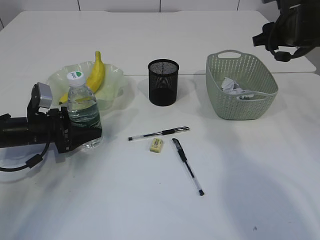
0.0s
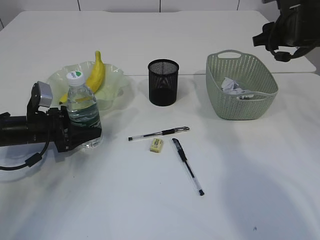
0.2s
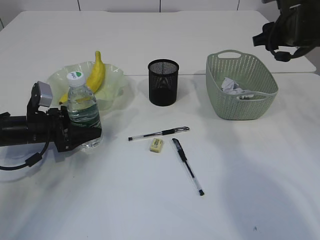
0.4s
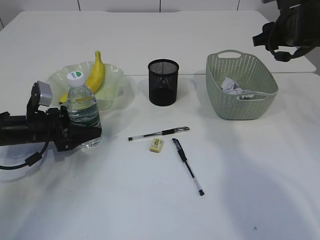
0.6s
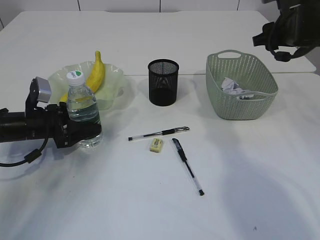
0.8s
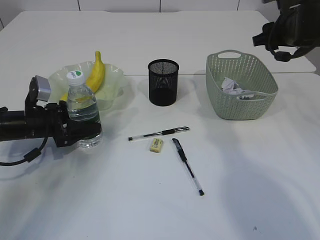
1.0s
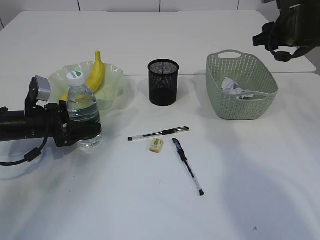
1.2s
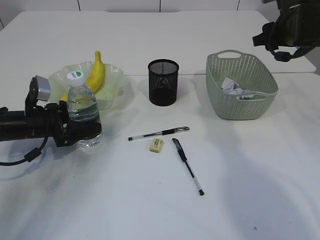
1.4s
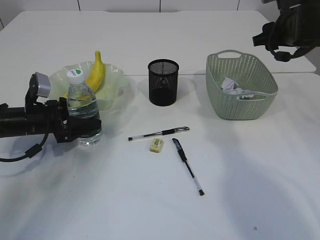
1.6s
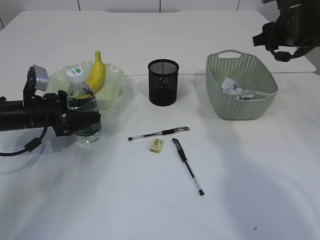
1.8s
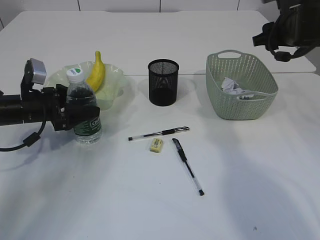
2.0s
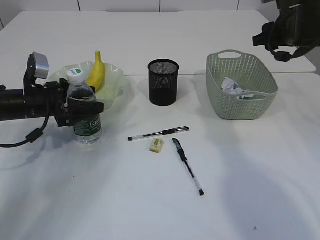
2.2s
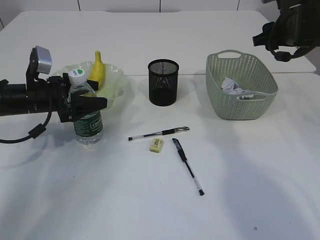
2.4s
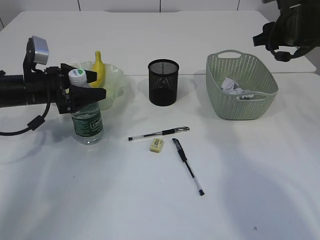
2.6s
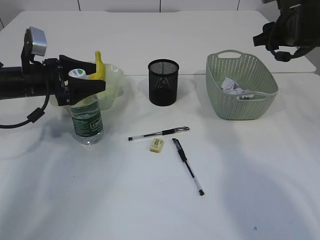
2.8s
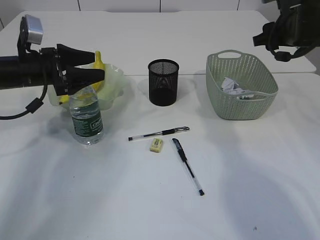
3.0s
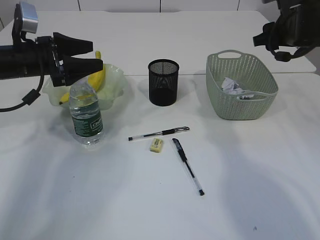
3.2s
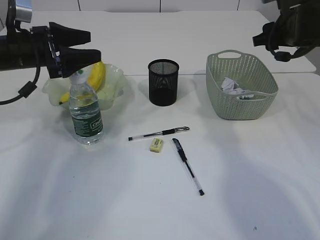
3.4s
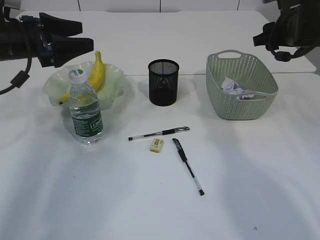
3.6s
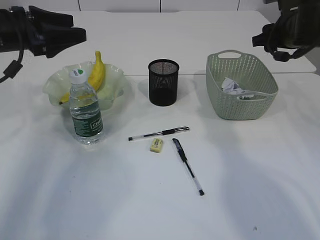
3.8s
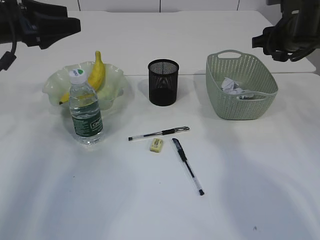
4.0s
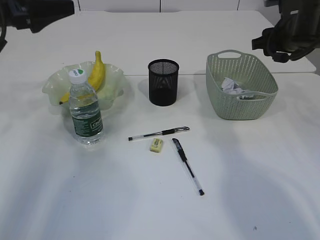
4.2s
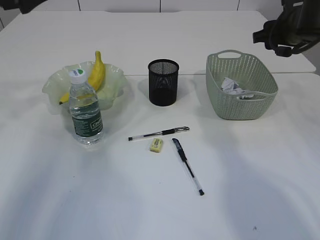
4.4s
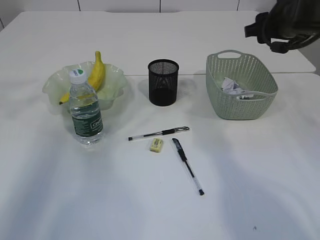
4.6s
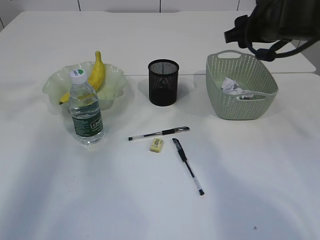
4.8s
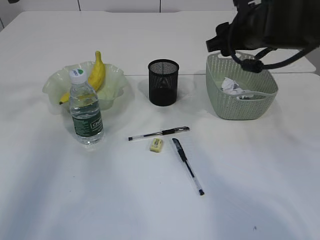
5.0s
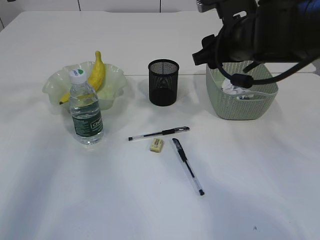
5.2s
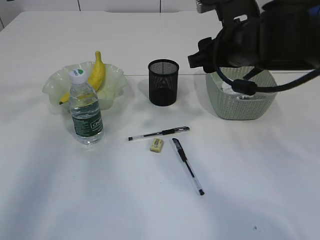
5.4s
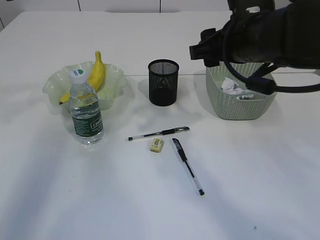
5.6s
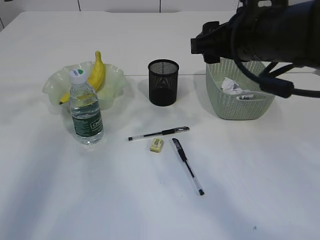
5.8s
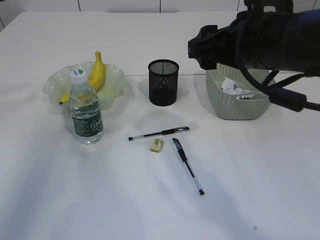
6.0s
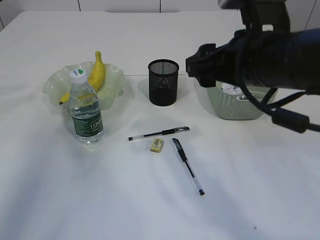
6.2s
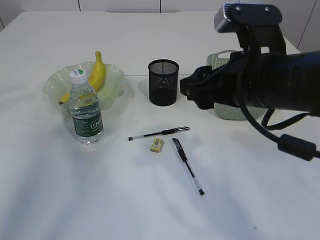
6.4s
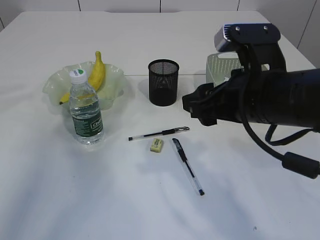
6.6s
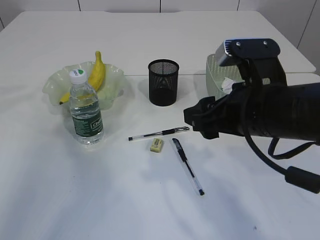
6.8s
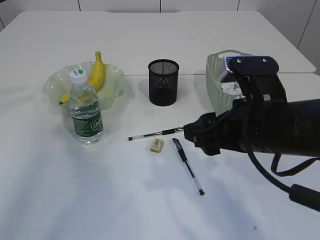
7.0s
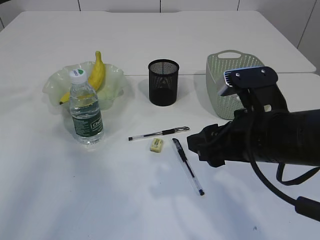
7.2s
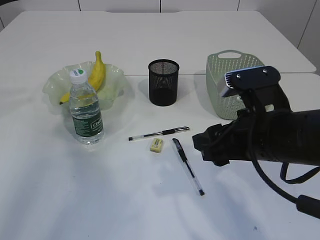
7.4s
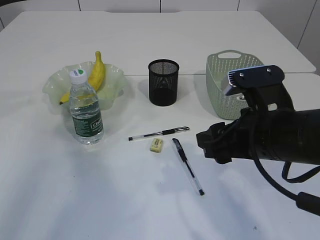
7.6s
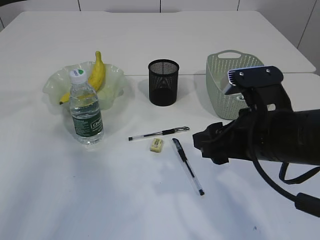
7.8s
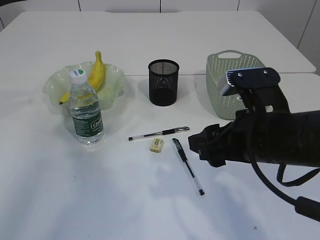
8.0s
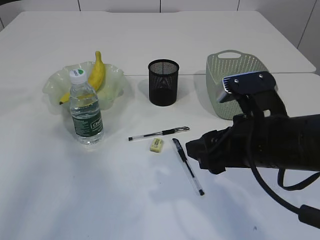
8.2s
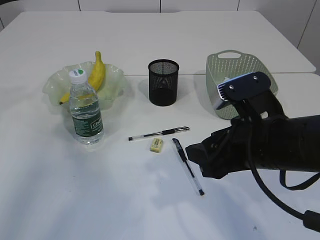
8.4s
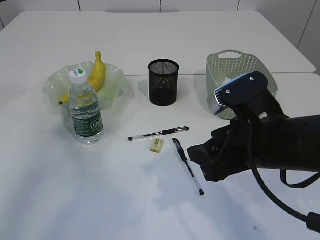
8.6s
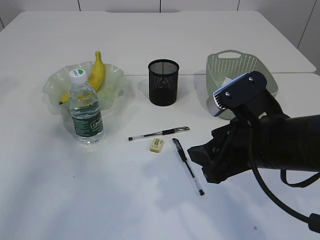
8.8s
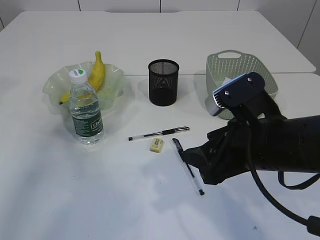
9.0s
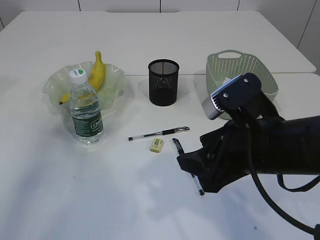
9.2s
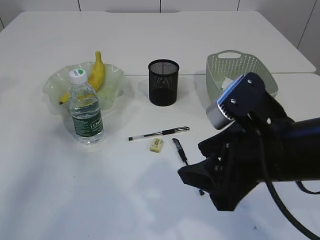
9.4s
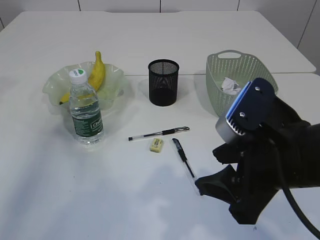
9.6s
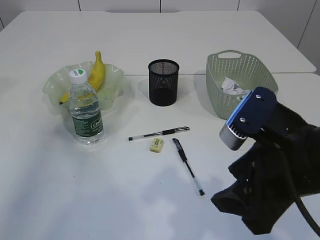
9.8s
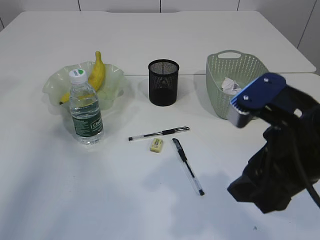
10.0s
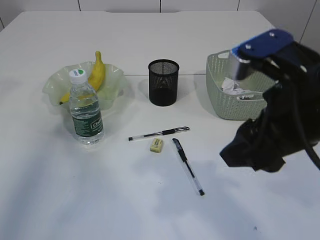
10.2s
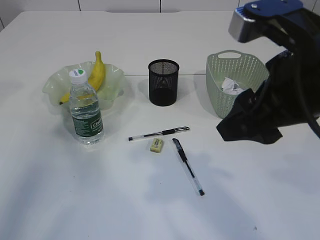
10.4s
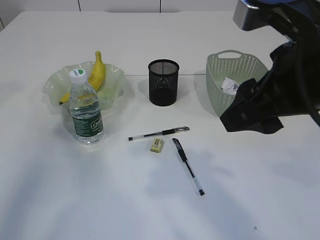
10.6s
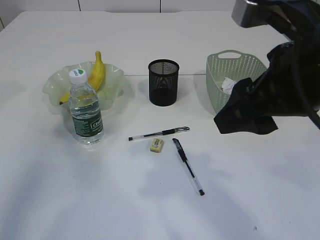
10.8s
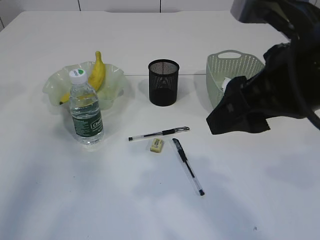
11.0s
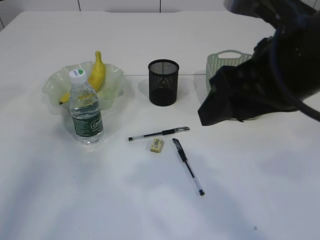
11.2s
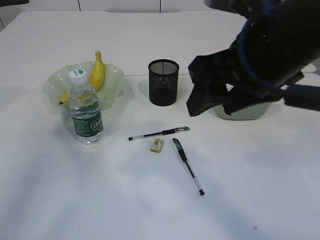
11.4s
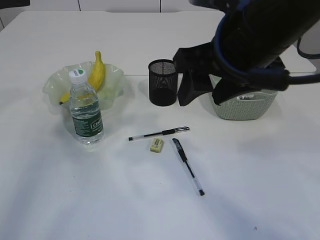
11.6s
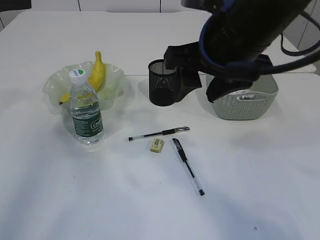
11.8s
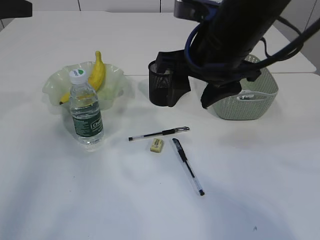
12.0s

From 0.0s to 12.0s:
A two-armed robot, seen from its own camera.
Step, from 0.0s to 3.4s: Place the bottle.
From 0.0s to 1.6s: The grippers move only a little.
From 1.6s to 3.0s: The left gripper moves upward, some 10 cm.
From 3.0s to 4.4s: The left gripper goes roughly 15 cm upward.
From 4.4s to 6.0s: The right gripper travels backward and to the left by approximately 20 cm.
From 6.0s to 7.6s: The right gripper travels downward and backward by roughly 10 cm.
From 9.0s to 10.4s: The right gripper moves upward, approximately 10 cm.
From 10.4s to 12.0s: The right gripper shifts roughly 10 cm forward and to the left.

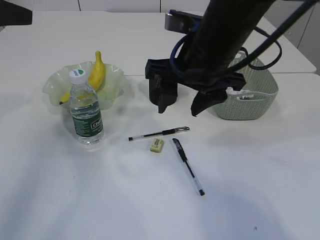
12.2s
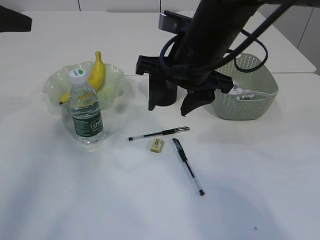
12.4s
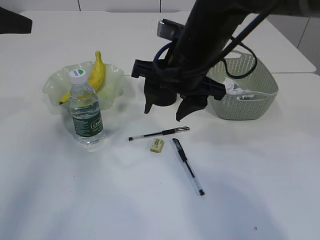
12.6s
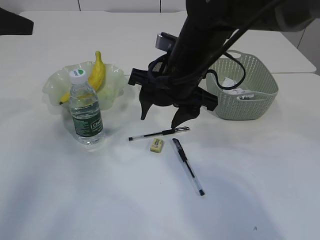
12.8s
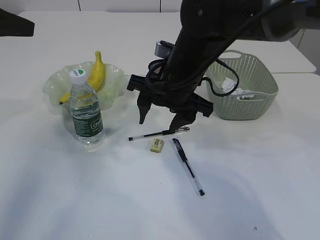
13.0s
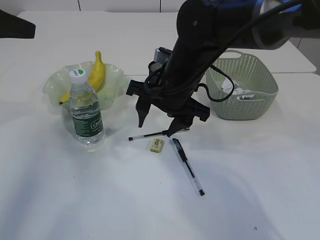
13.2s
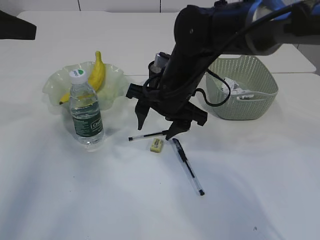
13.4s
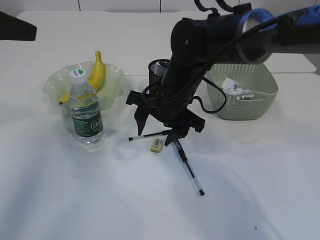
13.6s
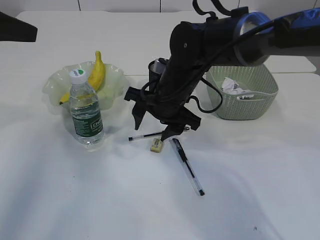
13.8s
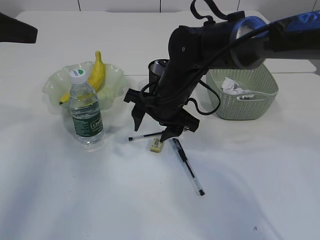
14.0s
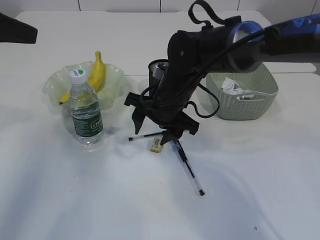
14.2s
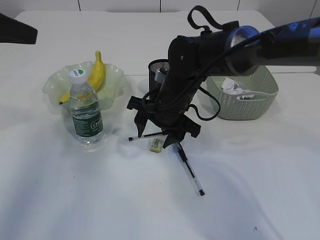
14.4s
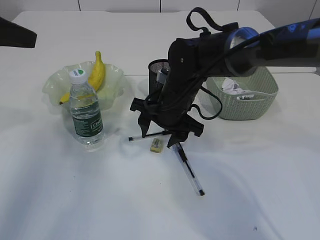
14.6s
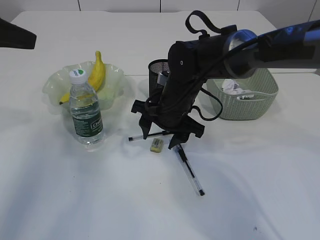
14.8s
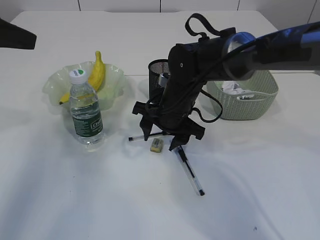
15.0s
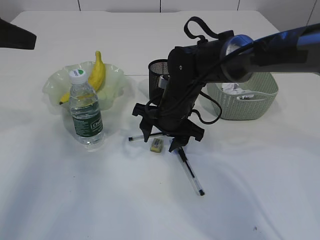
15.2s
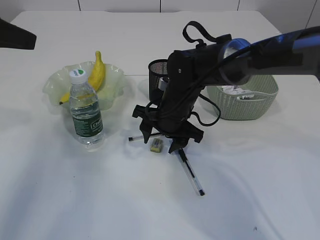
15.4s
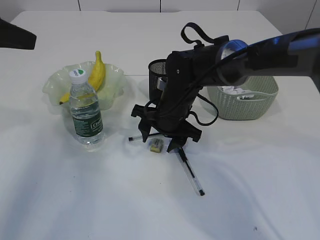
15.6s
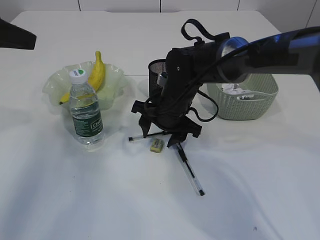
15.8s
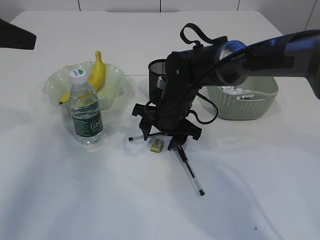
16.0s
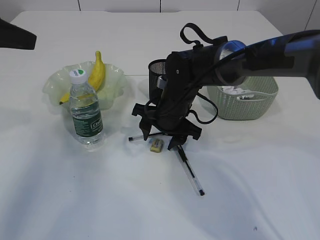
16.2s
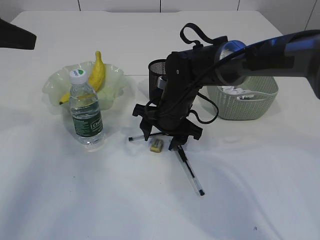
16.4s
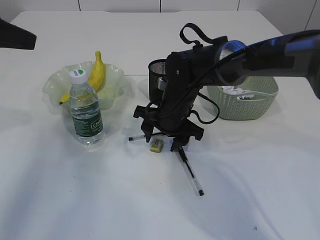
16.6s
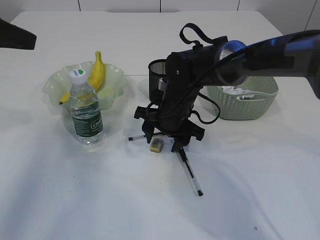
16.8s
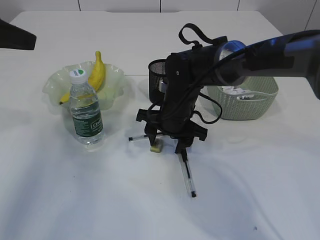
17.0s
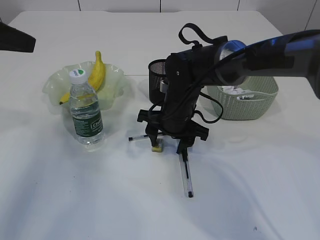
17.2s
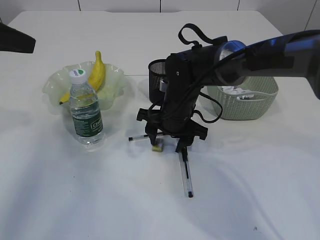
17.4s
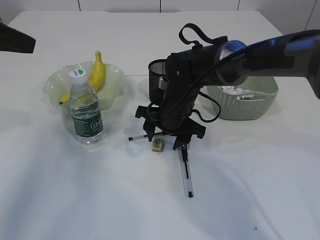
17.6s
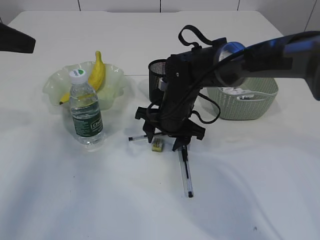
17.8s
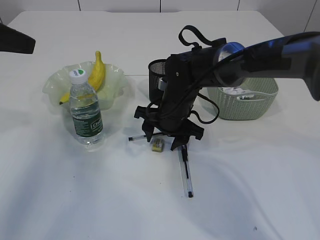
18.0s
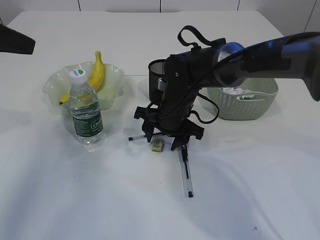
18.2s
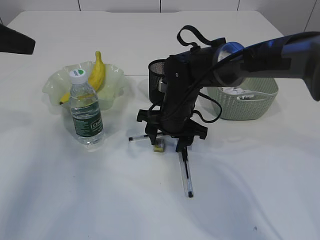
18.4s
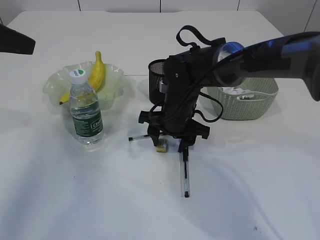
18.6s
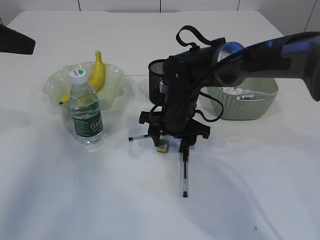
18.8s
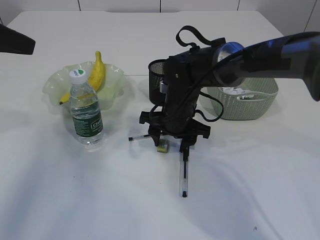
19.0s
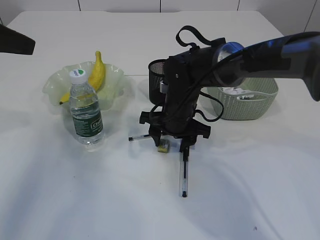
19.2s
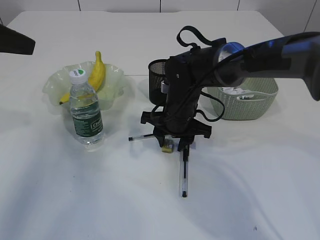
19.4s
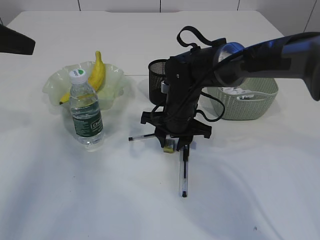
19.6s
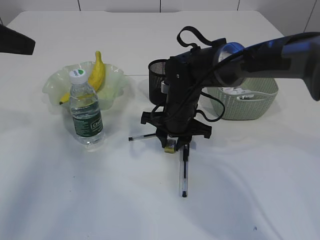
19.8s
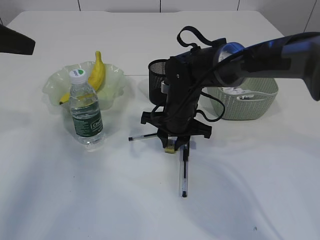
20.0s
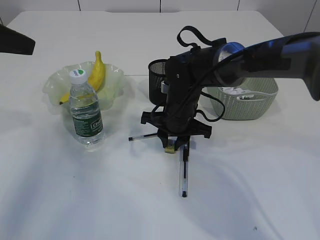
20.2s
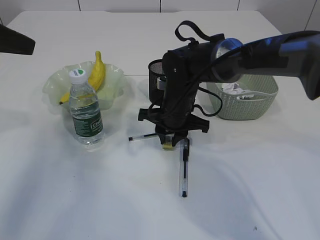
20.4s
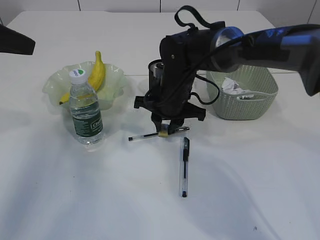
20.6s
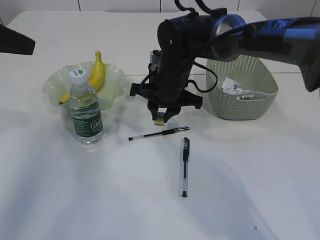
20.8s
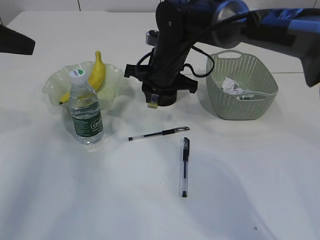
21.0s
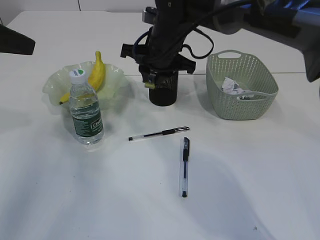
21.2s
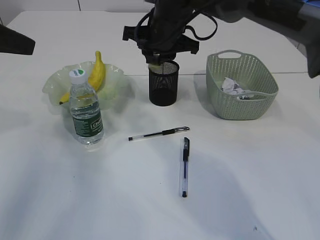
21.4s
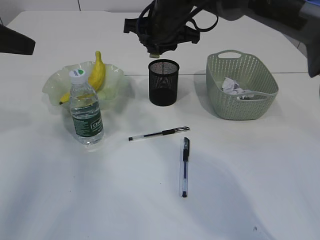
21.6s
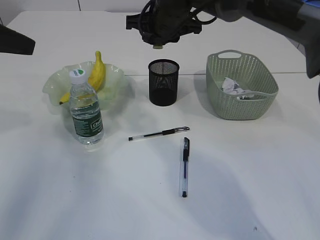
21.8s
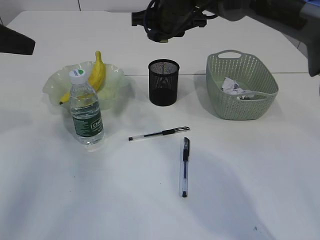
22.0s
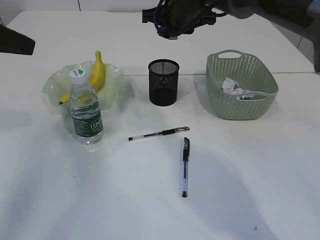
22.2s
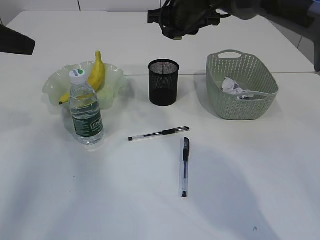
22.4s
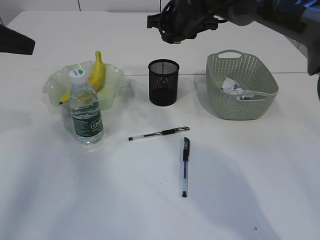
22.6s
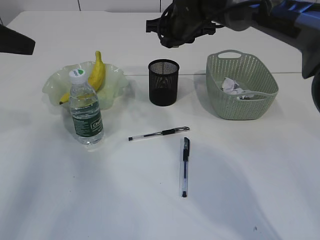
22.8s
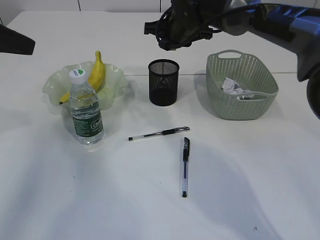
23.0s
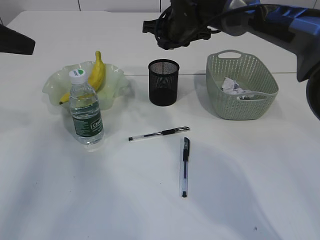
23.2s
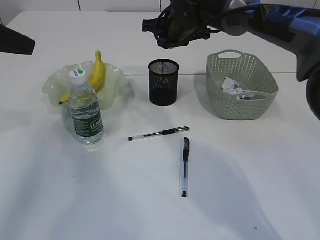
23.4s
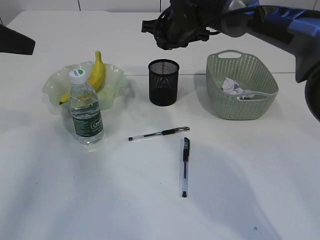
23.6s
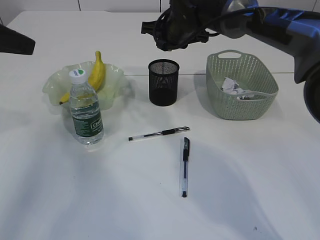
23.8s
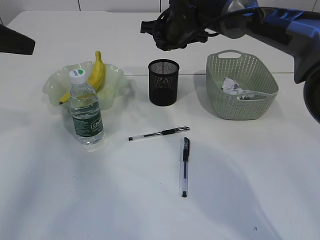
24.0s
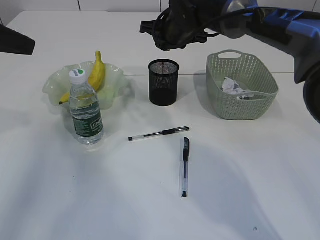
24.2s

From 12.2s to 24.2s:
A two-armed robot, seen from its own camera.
Step, from 12.2s to 20.6s: Pick up the eraser.
From 12.2s to 13.8s: The right gripper shifts roughly 10 cm downward and forward.
From 13.8s to 16.6s: The grippers make only small movements.
From 16.6s to 18.2s: Both grippers stay about where they are.
From 18.2s to 19.8s: The right gripper closes up.
From 19.8s to 21.2s: The right gripper goes about 10 cm upward.
From 21.2s to 22.6s: The right gripper shifts roughly 5 cm forward.
From 22.6s to 24.2s: The grippers move only a little.
